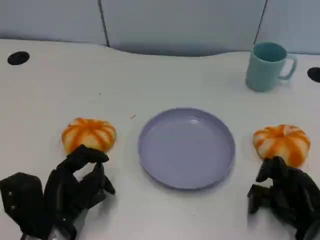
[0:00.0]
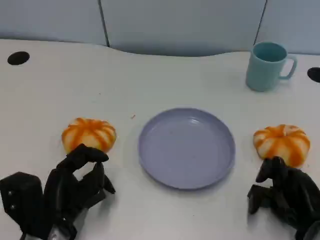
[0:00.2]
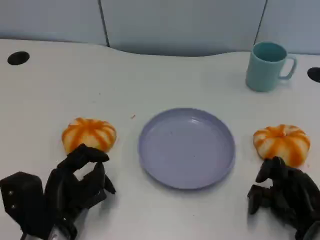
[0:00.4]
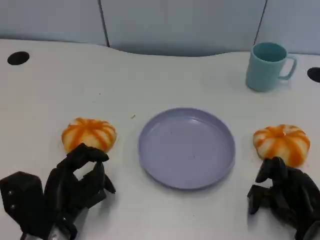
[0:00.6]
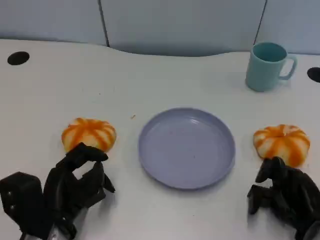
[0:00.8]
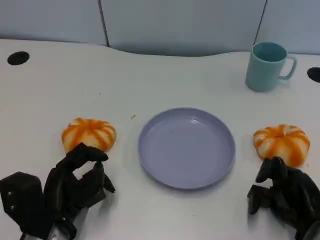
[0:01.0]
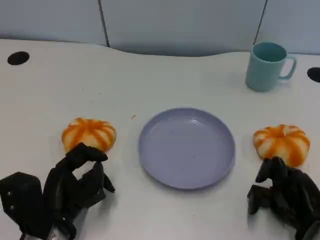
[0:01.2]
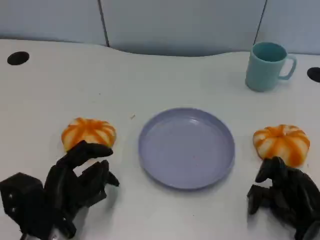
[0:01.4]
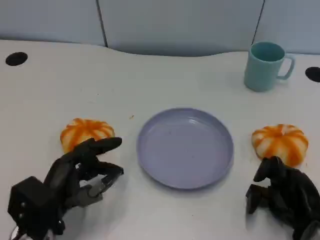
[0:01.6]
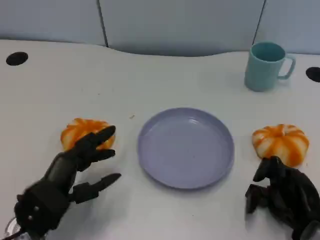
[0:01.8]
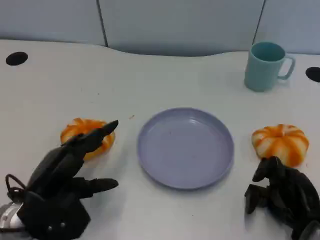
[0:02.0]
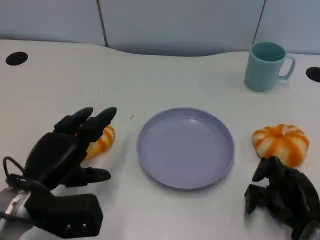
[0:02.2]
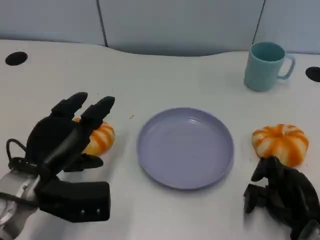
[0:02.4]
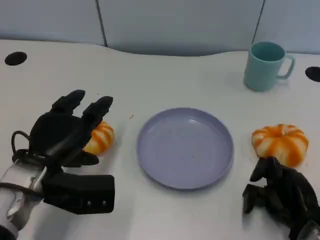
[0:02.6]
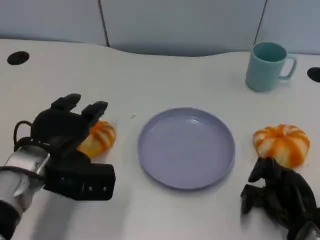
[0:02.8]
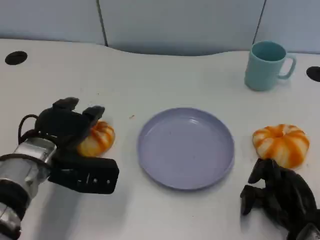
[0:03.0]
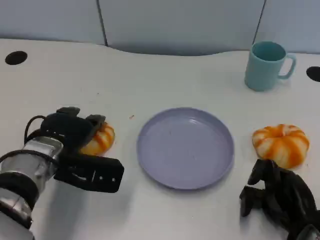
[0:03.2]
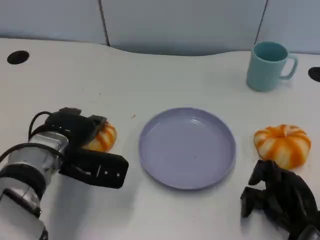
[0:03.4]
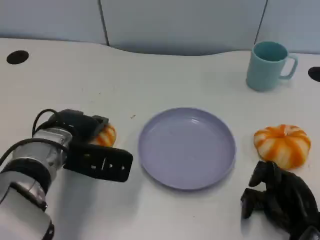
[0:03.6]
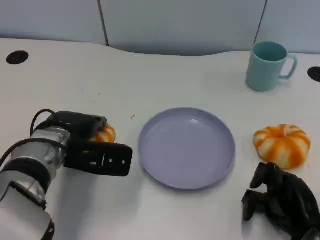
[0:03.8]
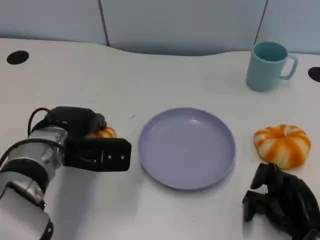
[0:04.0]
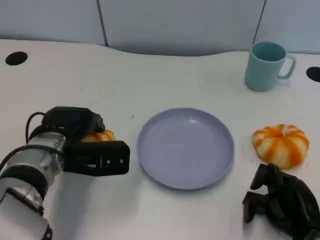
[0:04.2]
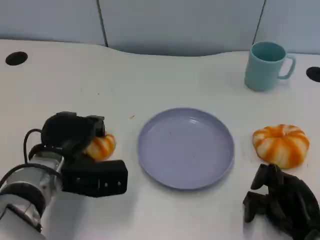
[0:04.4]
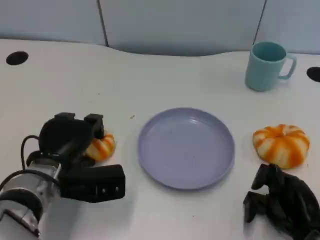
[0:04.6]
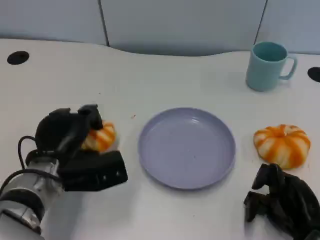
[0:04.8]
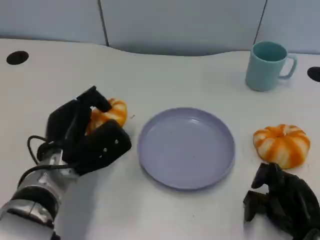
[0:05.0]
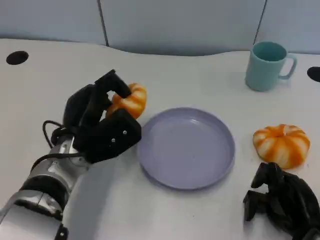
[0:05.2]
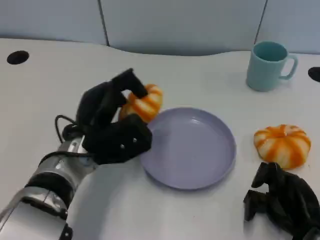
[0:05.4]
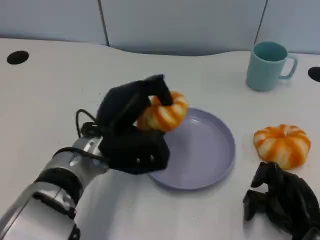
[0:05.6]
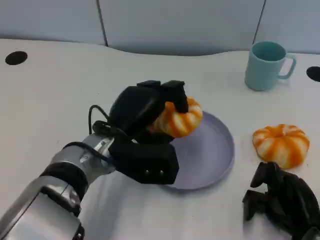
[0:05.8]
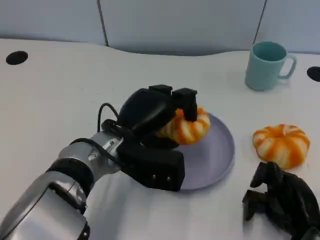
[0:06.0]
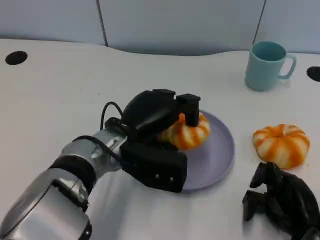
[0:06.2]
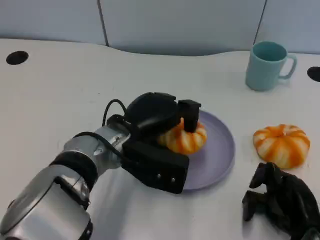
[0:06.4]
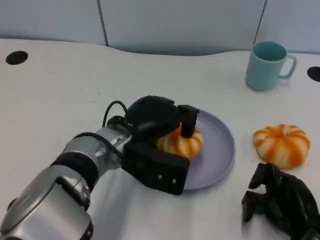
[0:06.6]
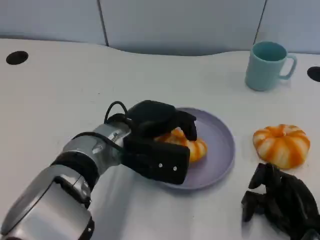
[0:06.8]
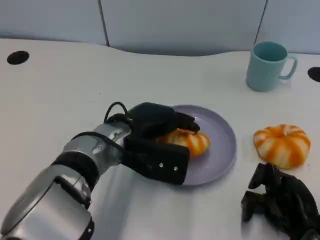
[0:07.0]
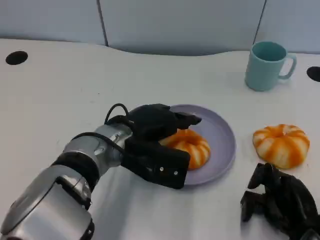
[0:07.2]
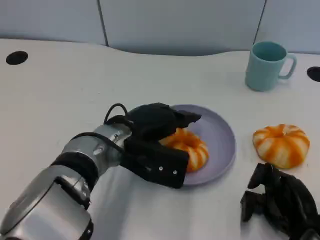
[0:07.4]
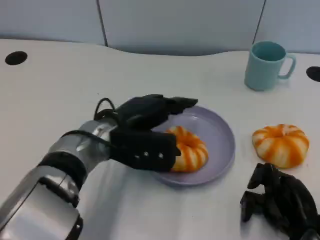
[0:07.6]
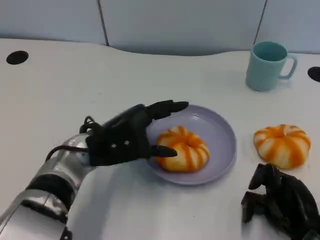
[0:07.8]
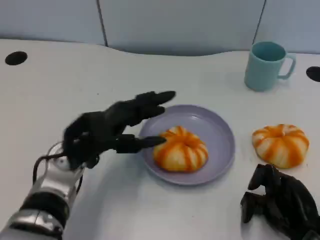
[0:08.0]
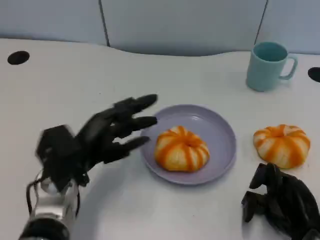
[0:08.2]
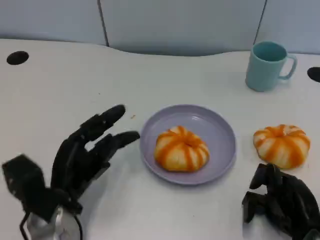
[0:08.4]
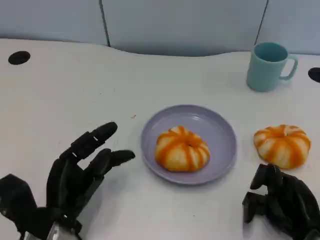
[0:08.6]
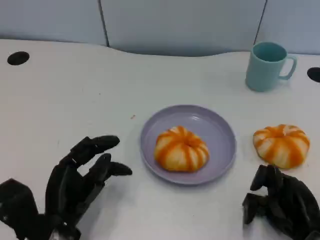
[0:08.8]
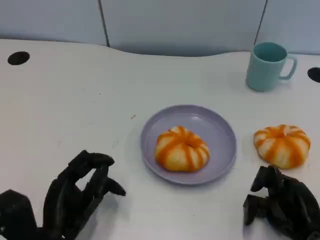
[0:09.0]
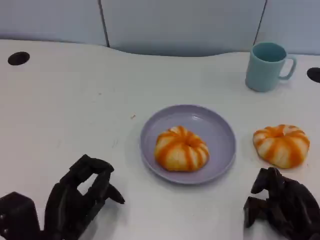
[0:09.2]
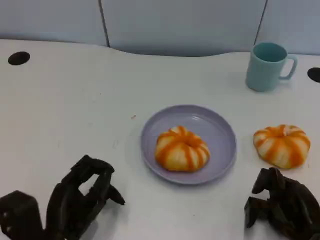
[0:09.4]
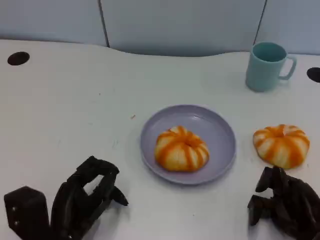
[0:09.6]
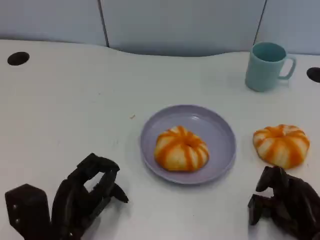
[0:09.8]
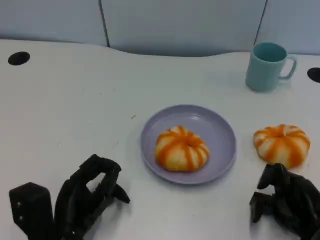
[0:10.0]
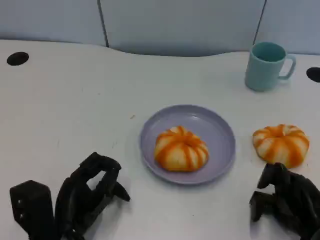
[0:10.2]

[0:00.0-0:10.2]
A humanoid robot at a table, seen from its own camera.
Task of the whole recording: Grasp the bread from the table and place it into the plate.
0:00.0 to 0:01.4: The hands make only small movements.
0:01.4 to 0:03.0: The left hand travels forward and upward by some 10 cm.
0:03.0 to 0:04.4: There are only small adjustments of the hands.
0:04.4 to 0:05.8: The left hand heads to the right, covering approximately 10 cm.
0:07.2 to 0:08.8: The left hand shifts about 15 cm backward, to the left and downward.
0:08.8 to 0:10.2: The hands move only a little.

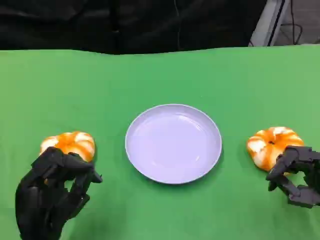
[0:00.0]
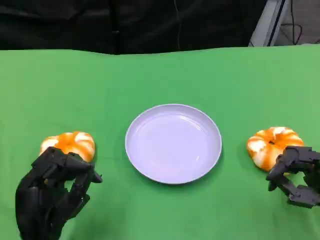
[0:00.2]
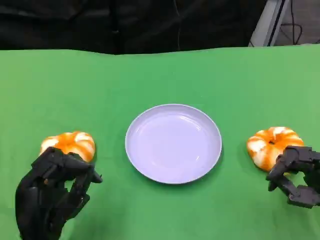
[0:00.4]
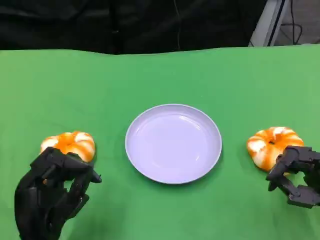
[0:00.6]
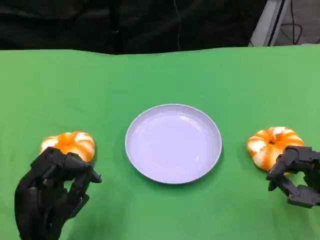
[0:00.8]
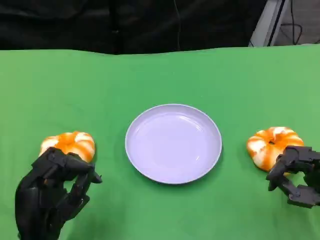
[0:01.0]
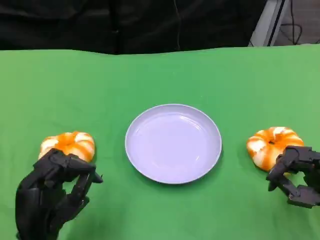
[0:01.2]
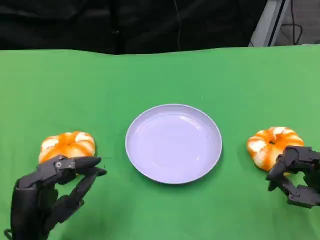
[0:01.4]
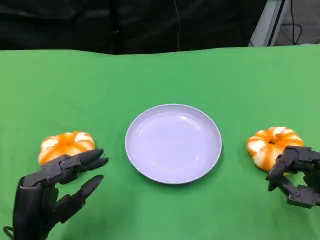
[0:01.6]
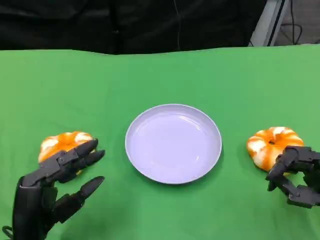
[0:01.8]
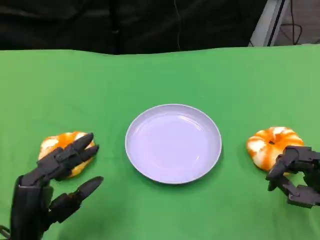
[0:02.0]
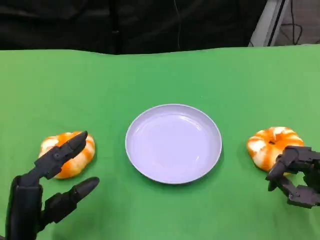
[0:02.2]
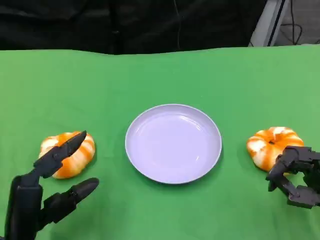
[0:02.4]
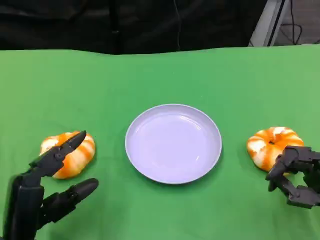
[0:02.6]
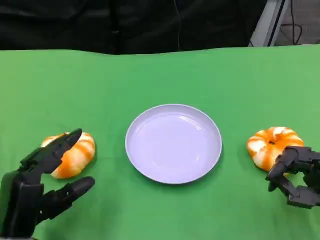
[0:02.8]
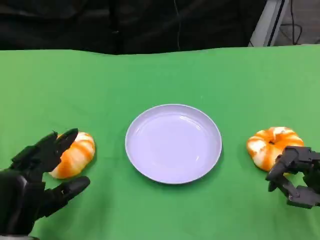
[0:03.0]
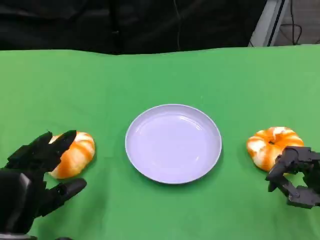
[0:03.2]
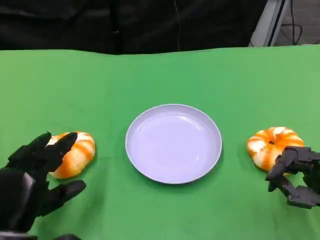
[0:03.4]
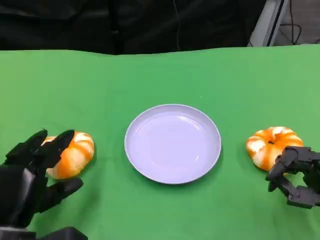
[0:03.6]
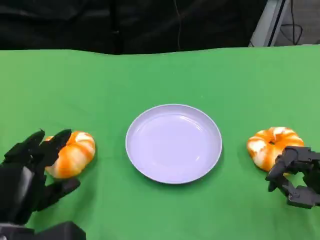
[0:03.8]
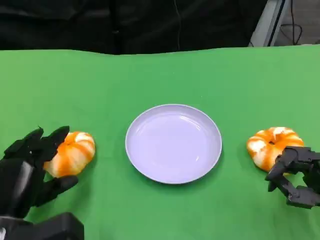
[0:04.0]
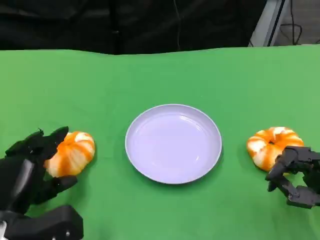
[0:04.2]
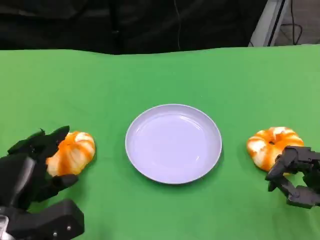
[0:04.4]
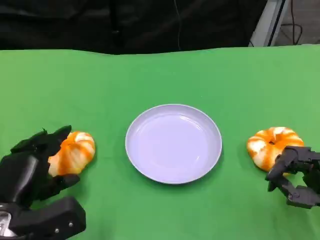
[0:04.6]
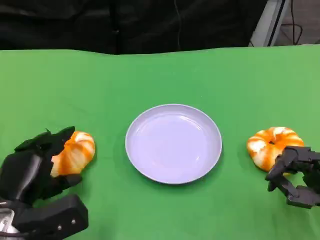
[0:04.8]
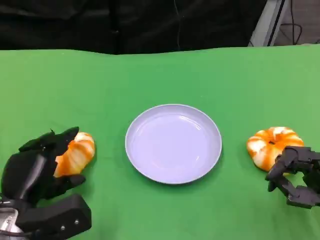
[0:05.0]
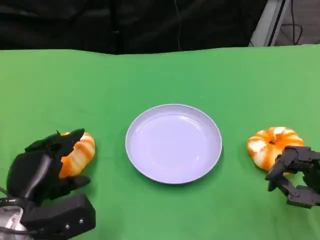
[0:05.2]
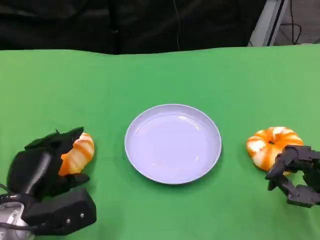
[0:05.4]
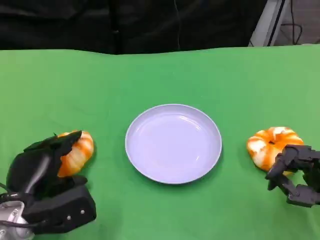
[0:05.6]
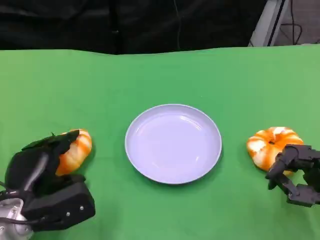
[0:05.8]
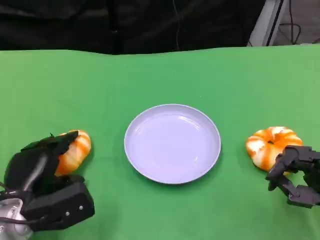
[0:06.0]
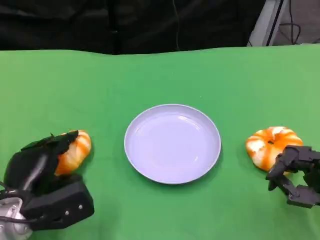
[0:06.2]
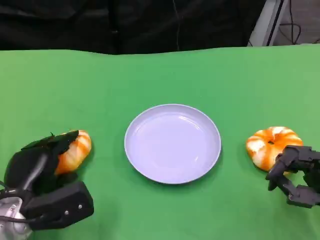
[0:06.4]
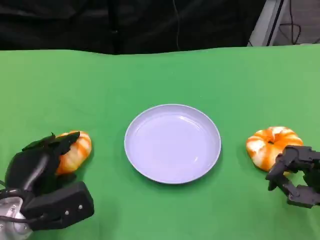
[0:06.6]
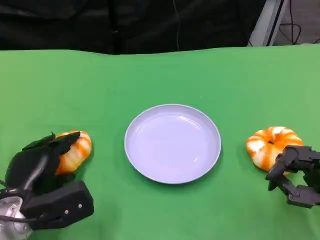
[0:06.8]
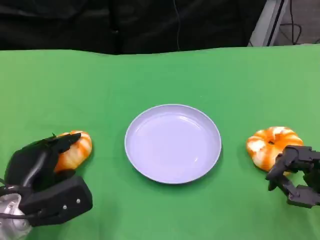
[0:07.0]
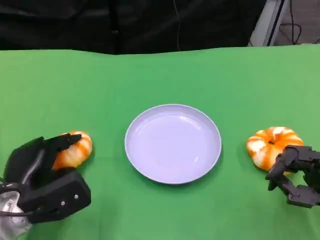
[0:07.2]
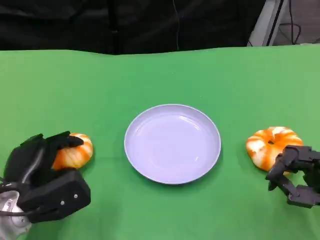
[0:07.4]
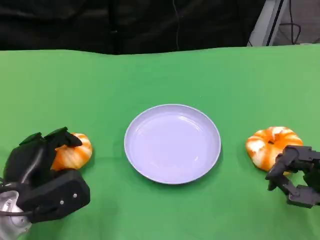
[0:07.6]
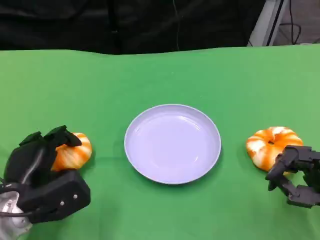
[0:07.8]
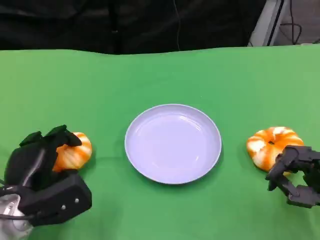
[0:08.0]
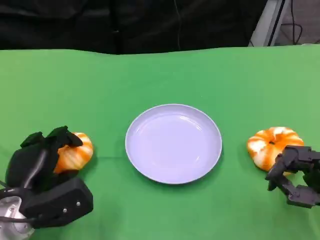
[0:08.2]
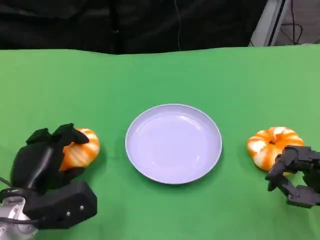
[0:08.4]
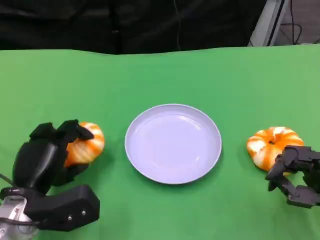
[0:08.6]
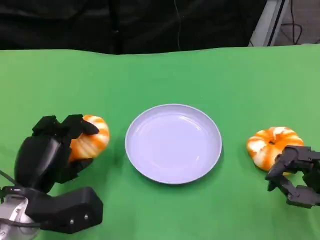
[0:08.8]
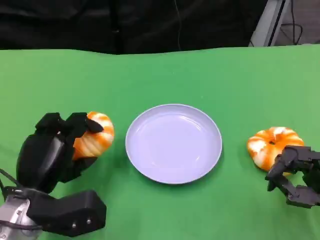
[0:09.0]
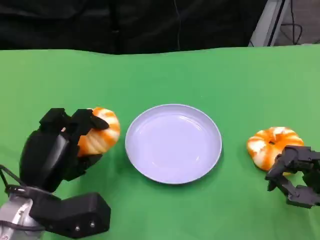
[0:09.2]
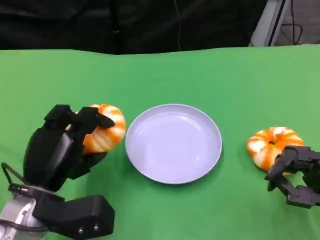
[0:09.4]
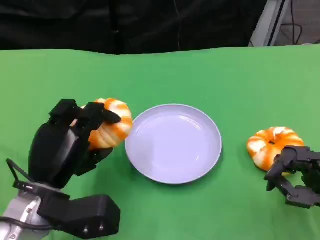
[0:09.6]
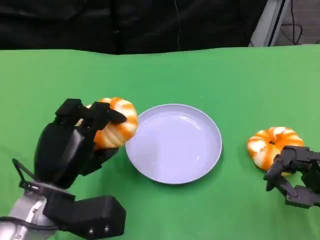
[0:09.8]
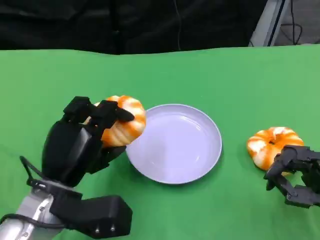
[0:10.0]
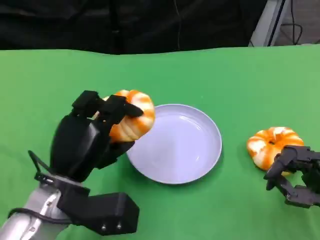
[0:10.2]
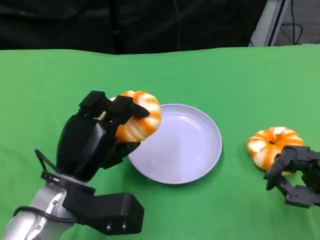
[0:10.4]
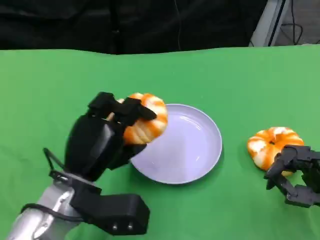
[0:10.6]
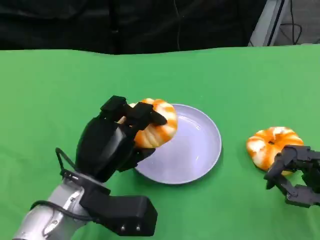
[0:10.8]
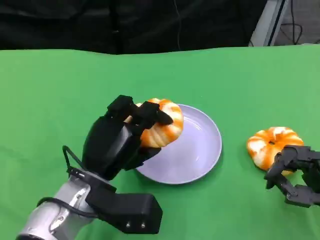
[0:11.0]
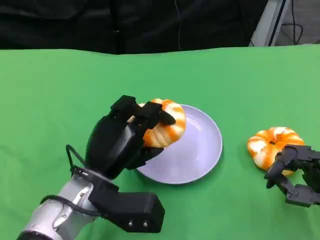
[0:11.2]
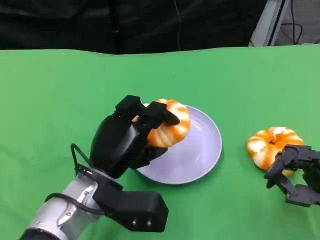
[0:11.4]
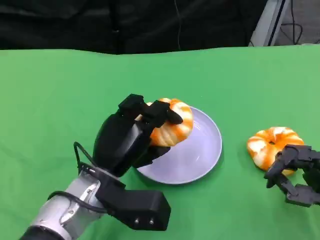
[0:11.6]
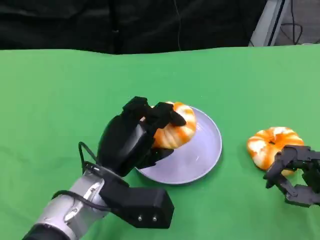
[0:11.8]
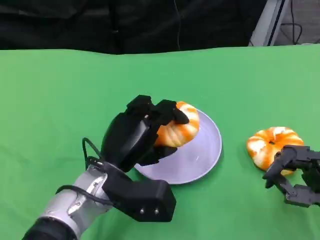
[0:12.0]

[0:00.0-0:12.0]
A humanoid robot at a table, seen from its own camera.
Task of the whole recording: Grasp the bread from the table and place it into the plate.
0:00.0 to 0:01.6: The hands move only a little.
0:04.4 to 0:09.0: There are only small adjustments of the hands.
0:09.0 to 0:10.4: The left hand is displaced to the right by about 5 cm.
0:10.4 to 0:12.0: The left hand goes approximately 5 cm to the right.
